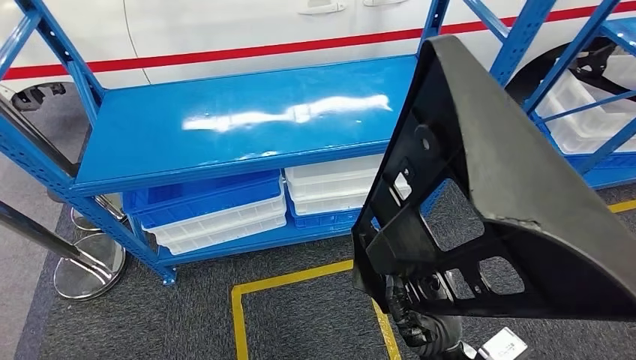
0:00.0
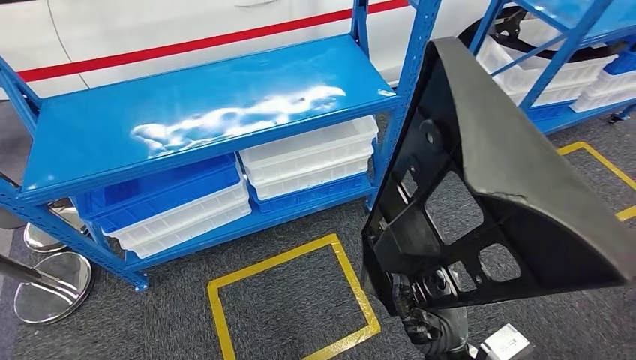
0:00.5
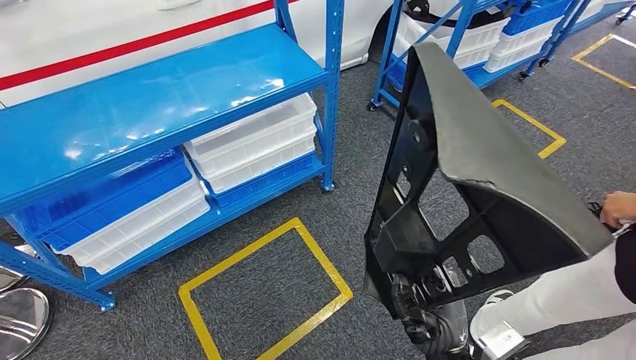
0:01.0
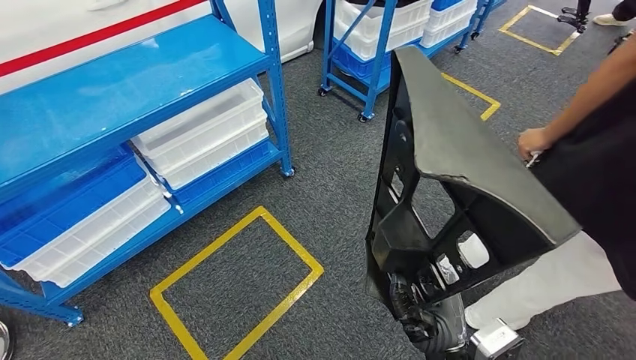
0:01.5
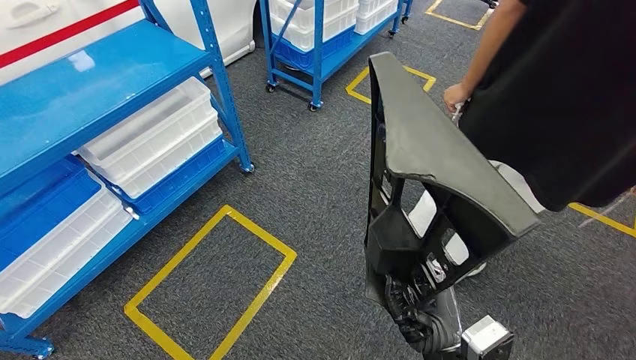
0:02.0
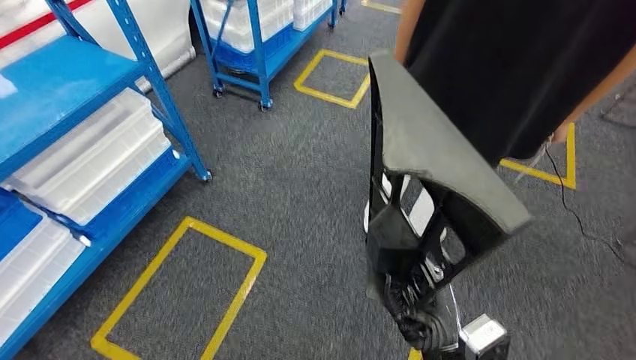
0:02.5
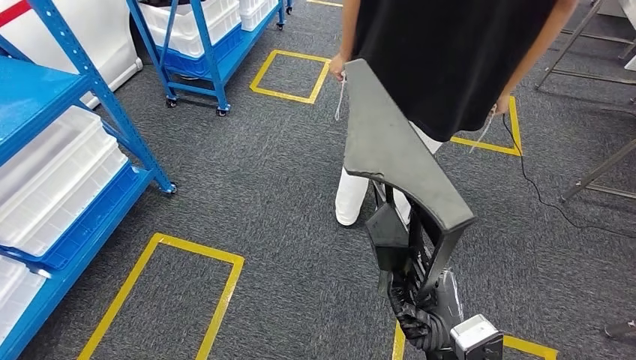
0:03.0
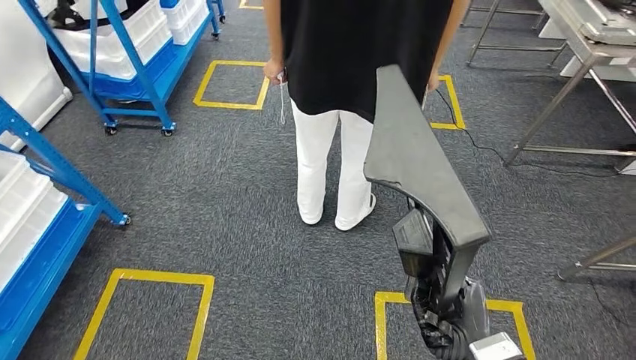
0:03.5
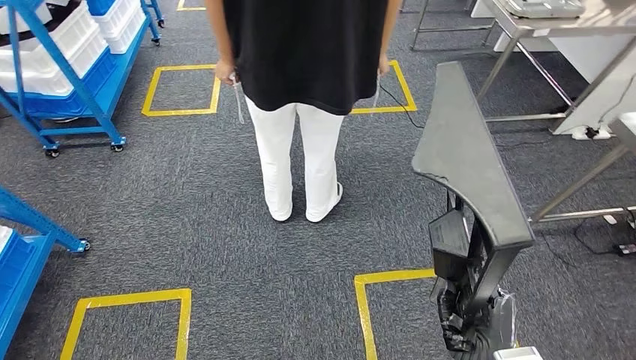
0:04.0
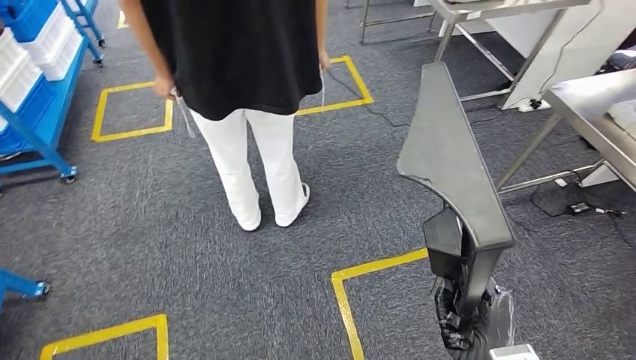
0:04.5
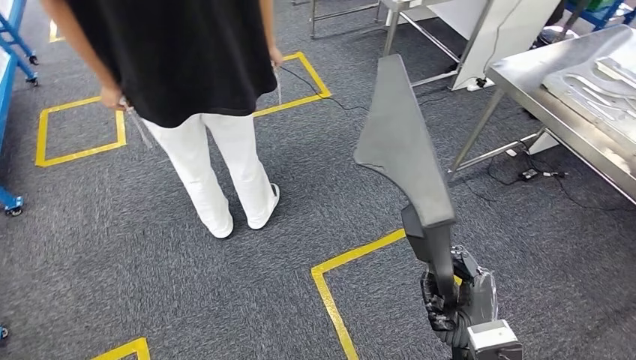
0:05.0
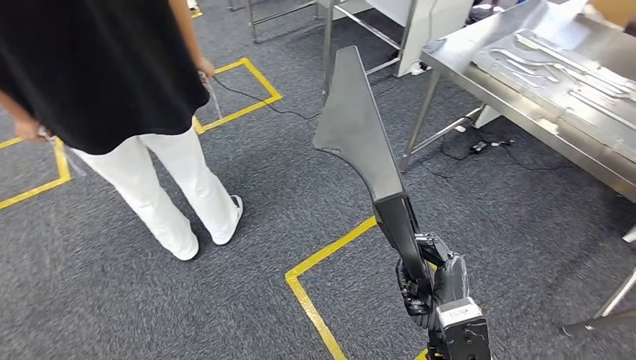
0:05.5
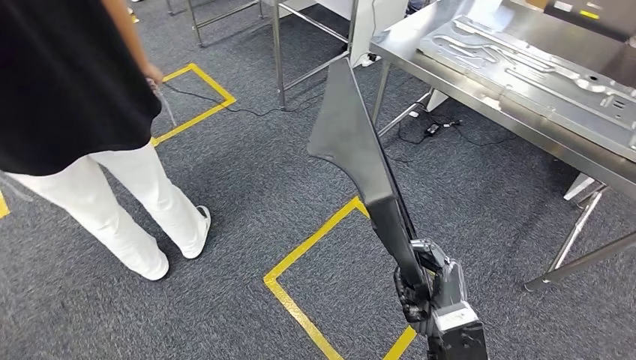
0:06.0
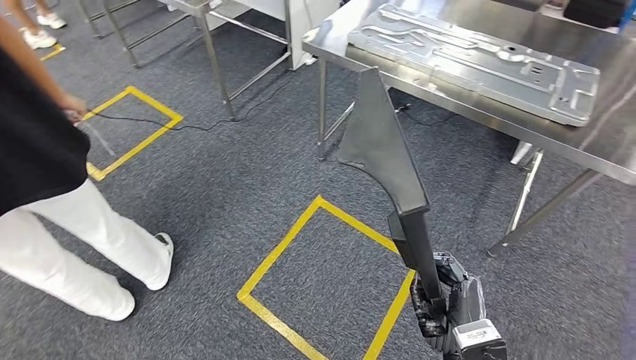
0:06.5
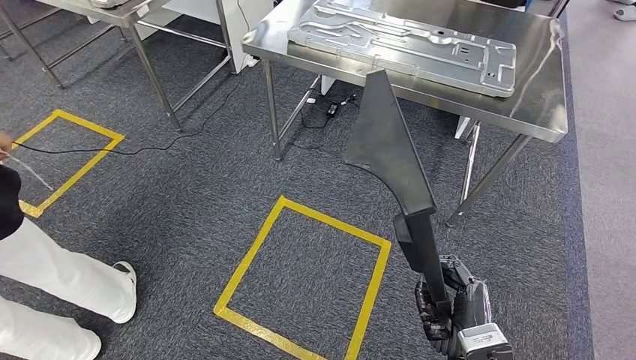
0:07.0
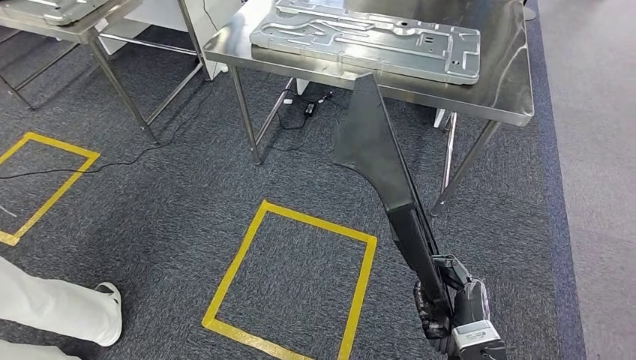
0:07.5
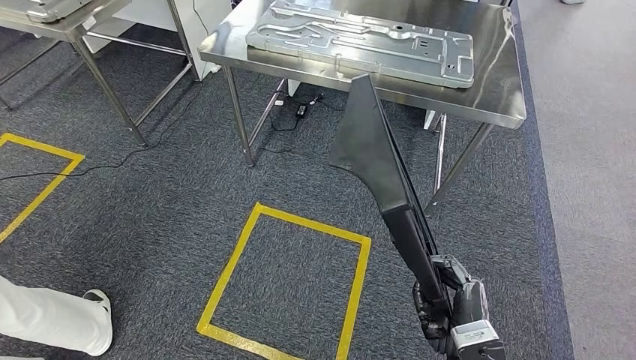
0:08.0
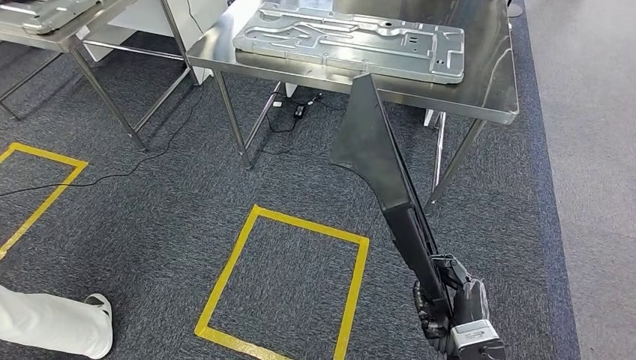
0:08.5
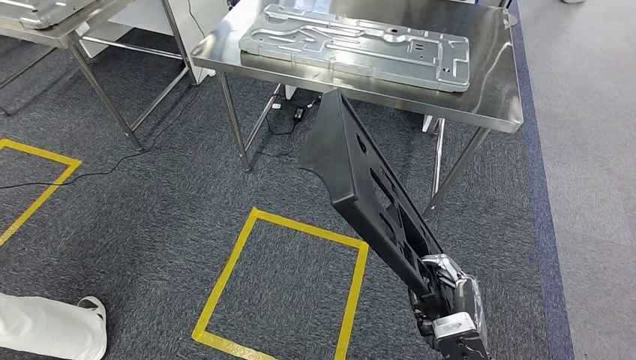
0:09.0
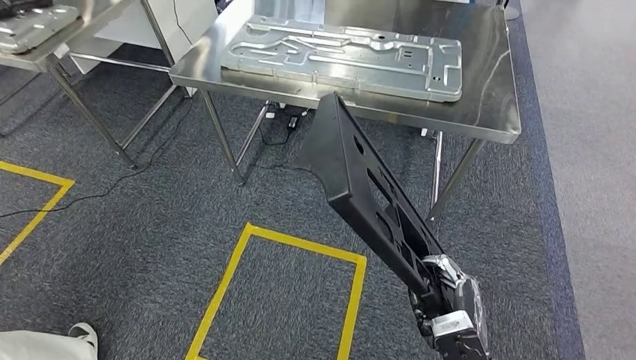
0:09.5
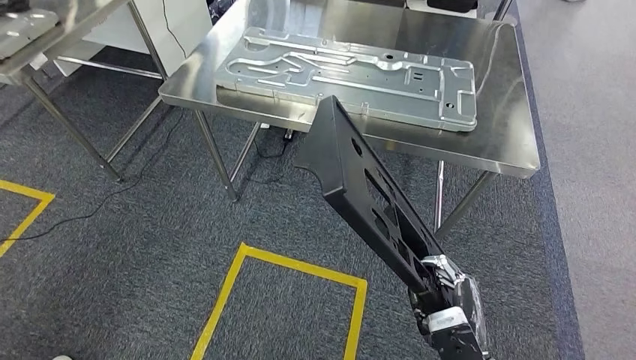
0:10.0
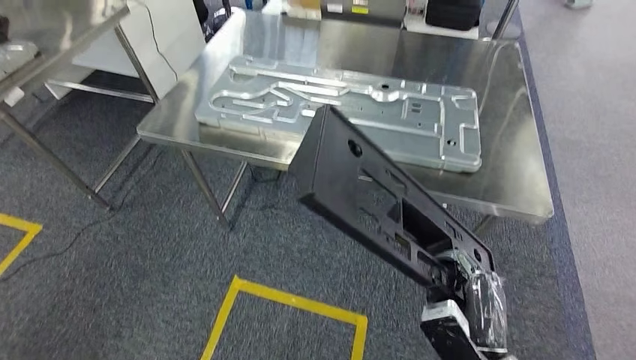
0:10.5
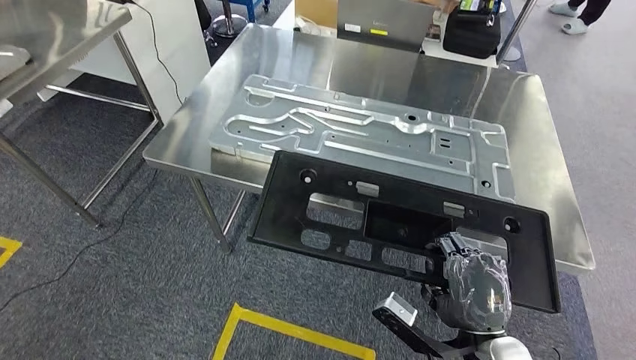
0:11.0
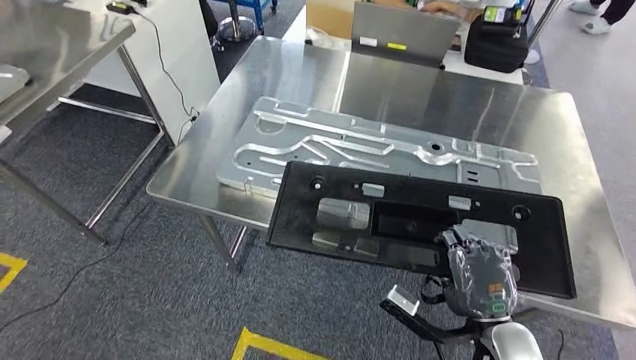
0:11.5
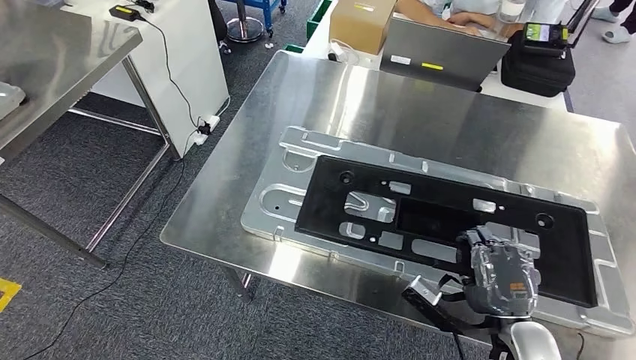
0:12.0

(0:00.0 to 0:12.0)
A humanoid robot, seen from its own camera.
Step, 0:00.0 - 0:11.5: Move the large material to the workbench.

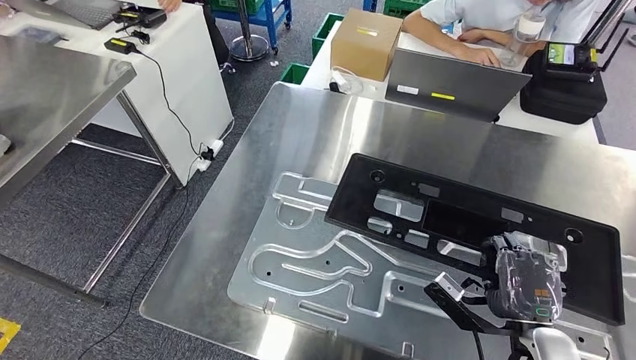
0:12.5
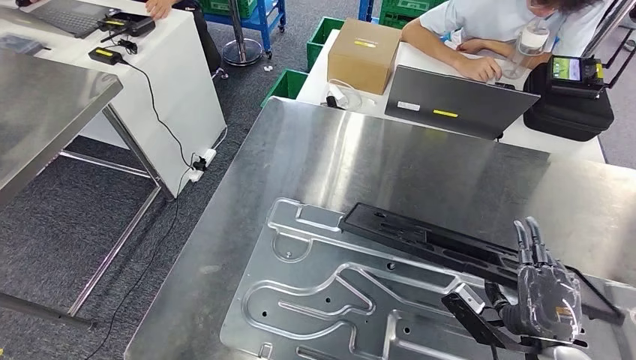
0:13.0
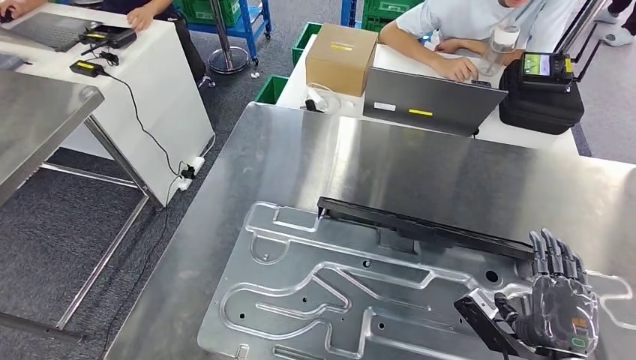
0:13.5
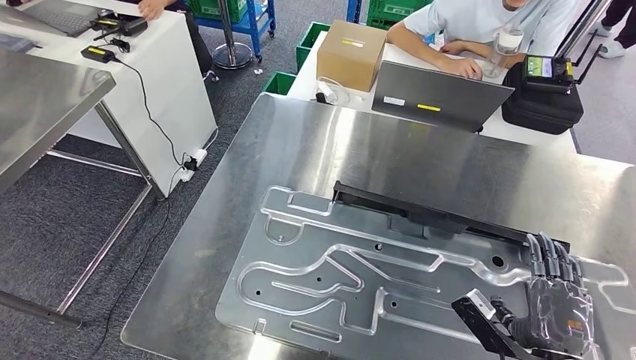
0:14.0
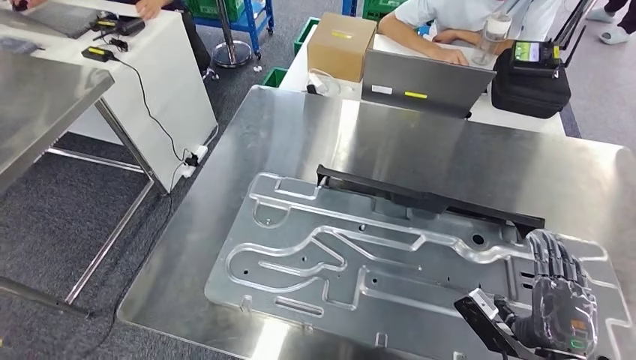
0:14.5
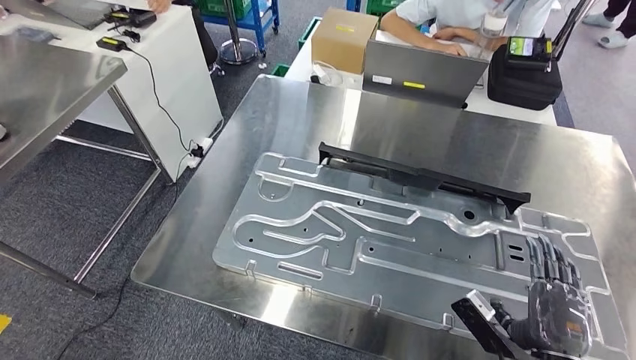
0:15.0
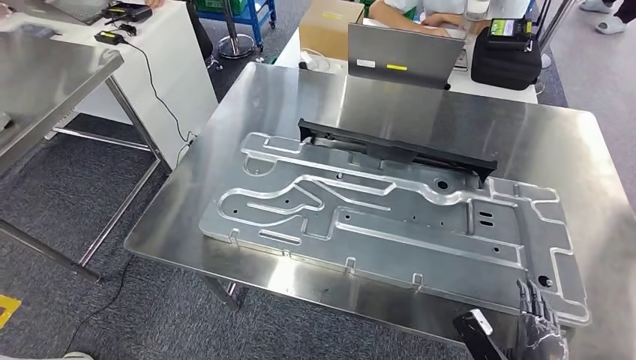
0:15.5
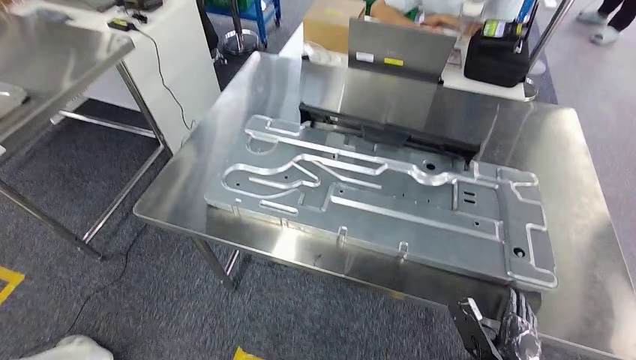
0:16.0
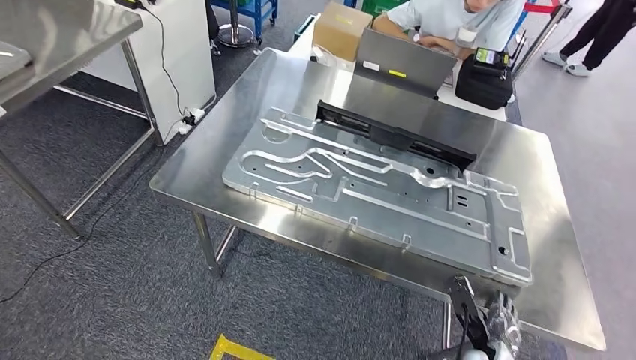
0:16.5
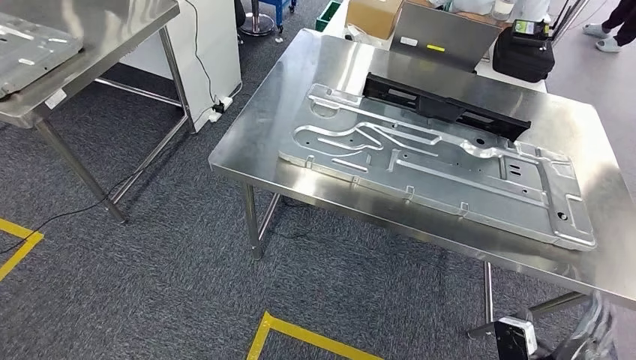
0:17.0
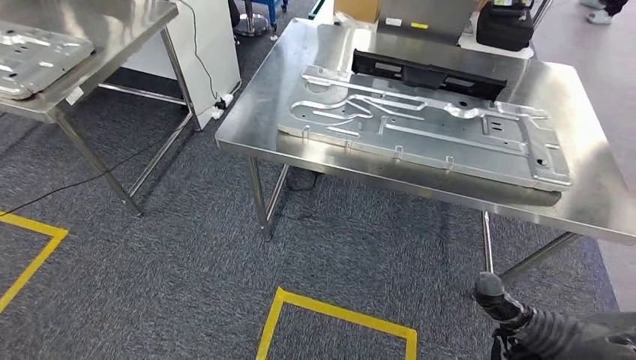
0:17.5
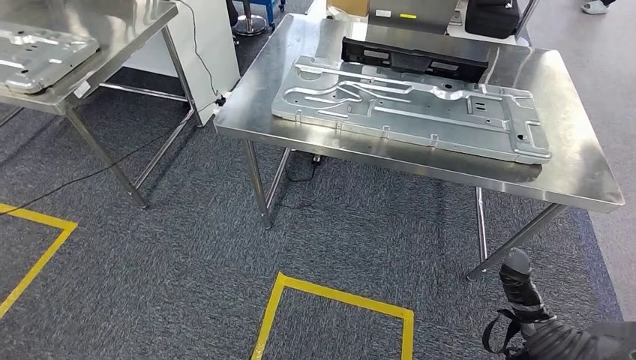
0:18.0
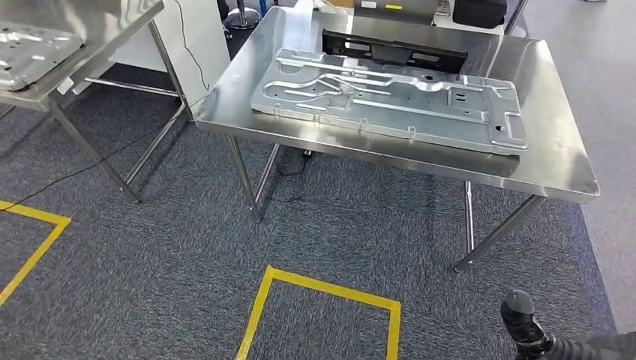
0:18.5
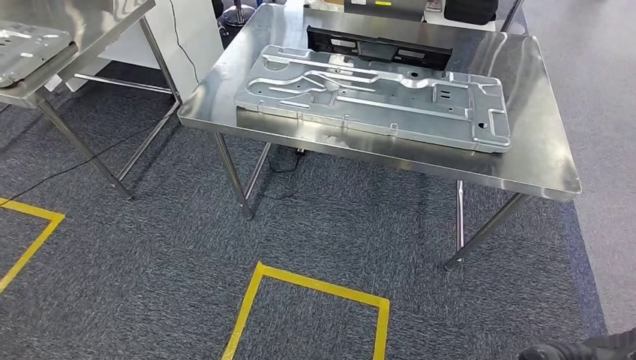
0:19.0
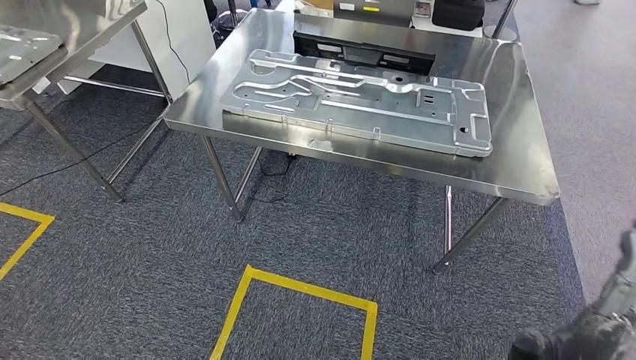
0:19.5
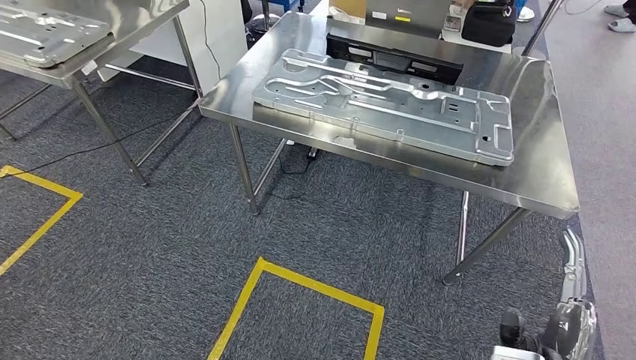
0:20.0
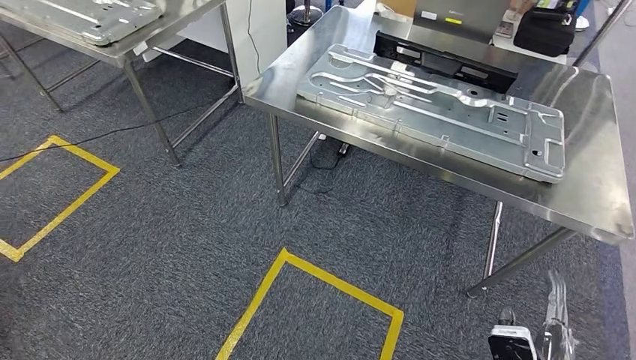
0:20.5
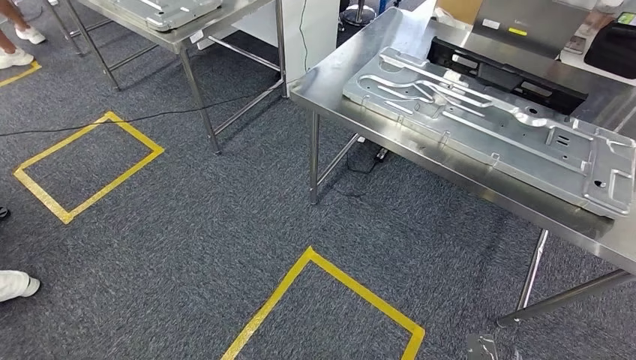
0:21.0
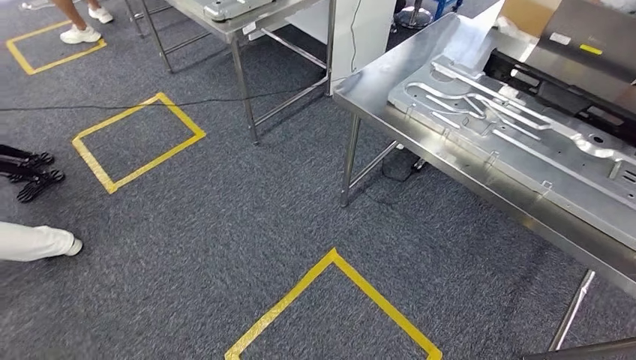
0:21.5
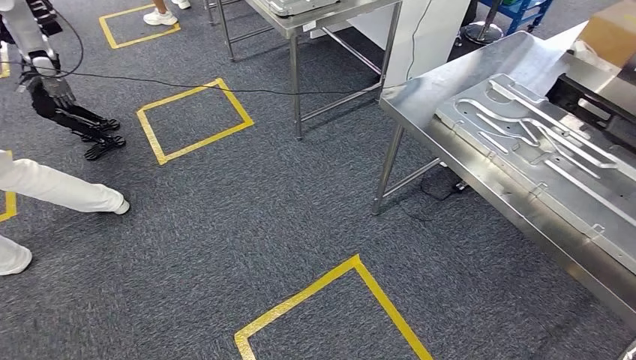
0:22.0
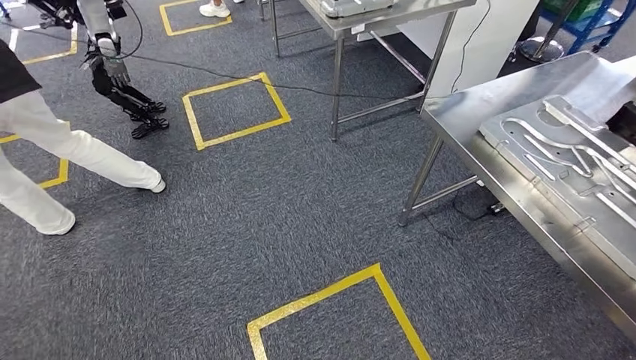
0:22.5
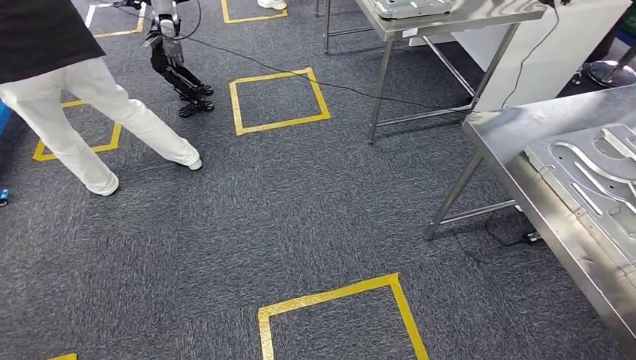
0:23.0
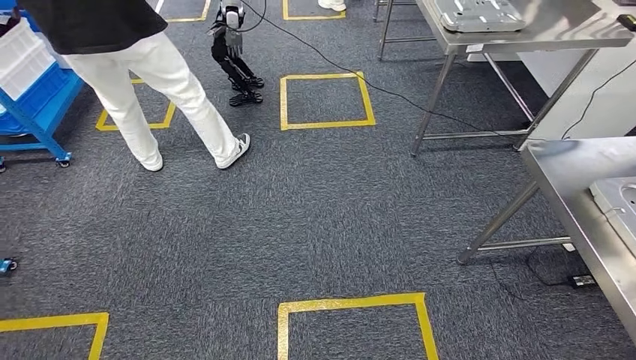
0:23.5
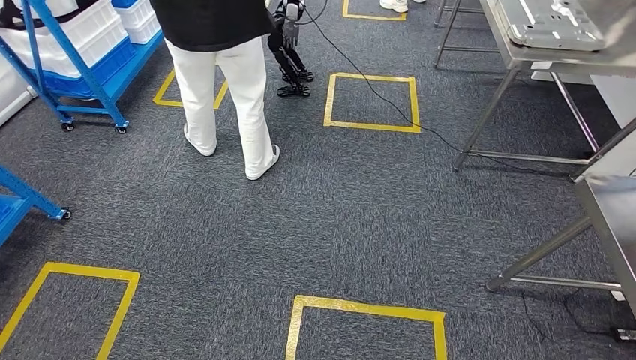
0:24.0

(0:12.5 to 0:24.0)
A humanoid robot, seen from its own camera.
Step, 0:12.5 - 0:16.0: Insert the large material into the corresponding slot on the workbench.
